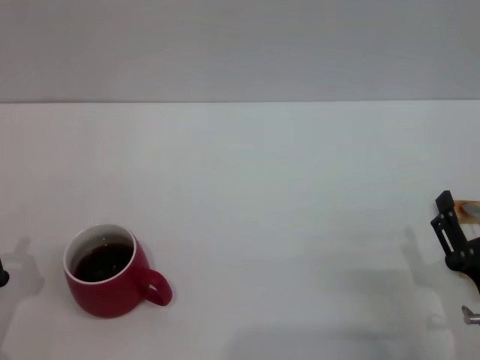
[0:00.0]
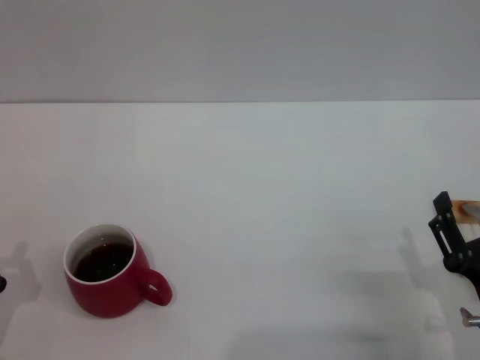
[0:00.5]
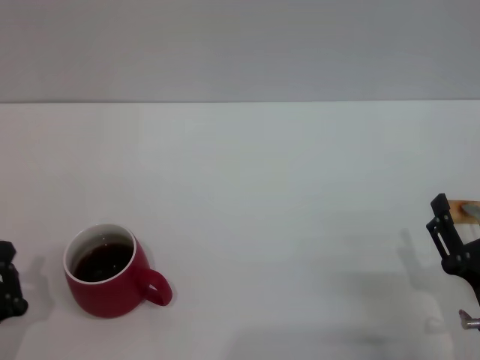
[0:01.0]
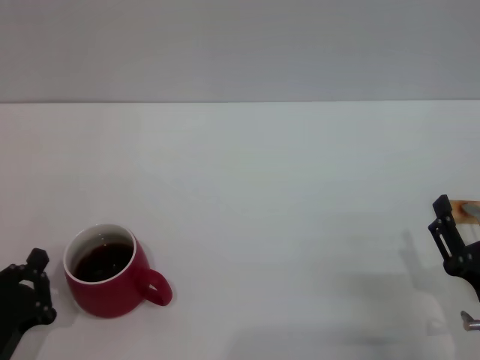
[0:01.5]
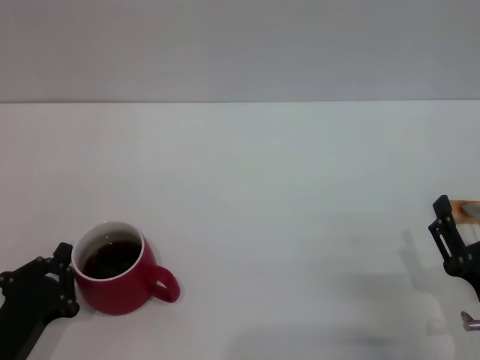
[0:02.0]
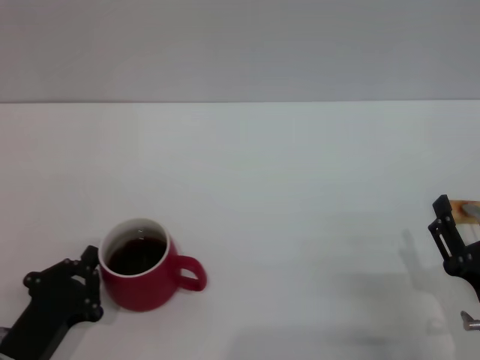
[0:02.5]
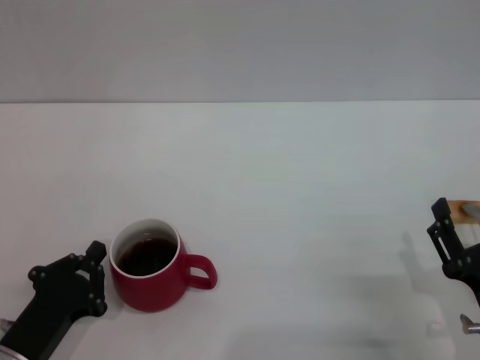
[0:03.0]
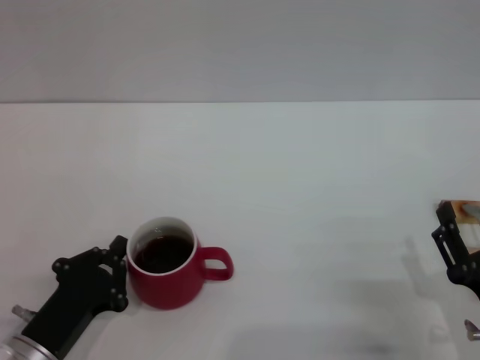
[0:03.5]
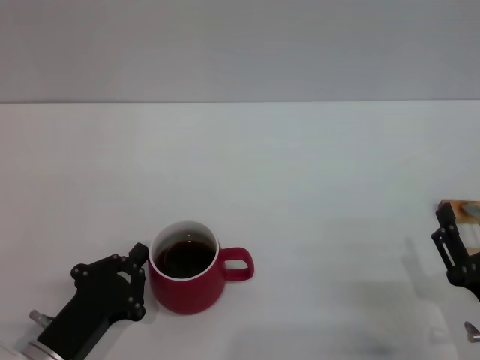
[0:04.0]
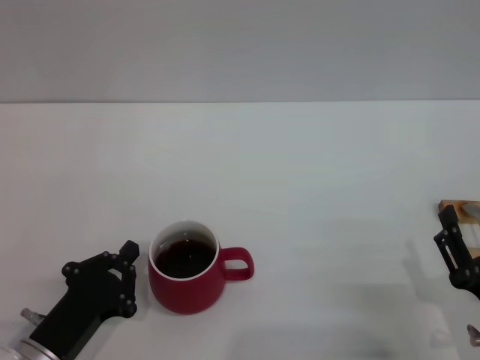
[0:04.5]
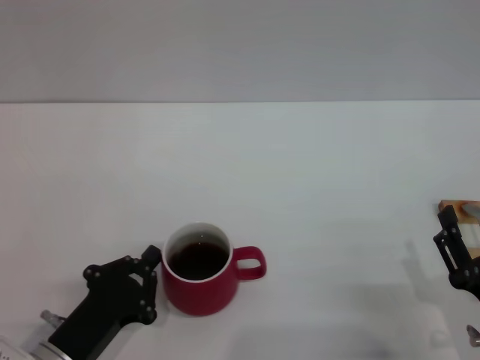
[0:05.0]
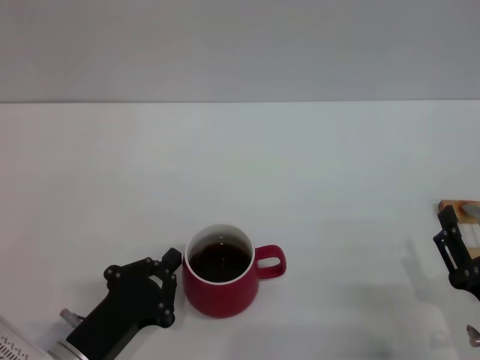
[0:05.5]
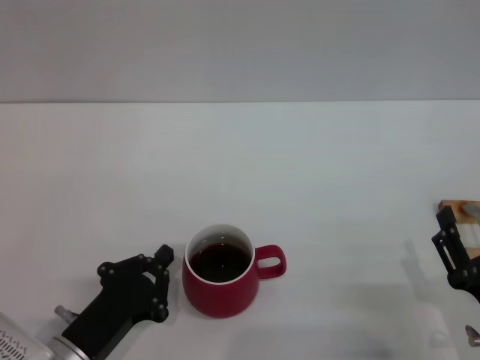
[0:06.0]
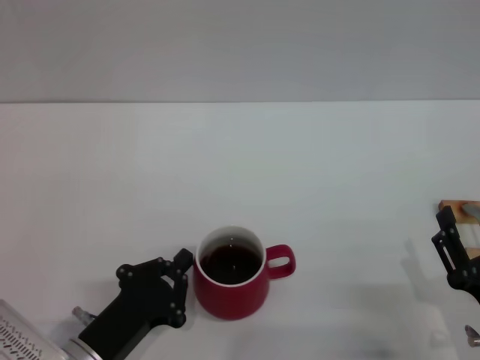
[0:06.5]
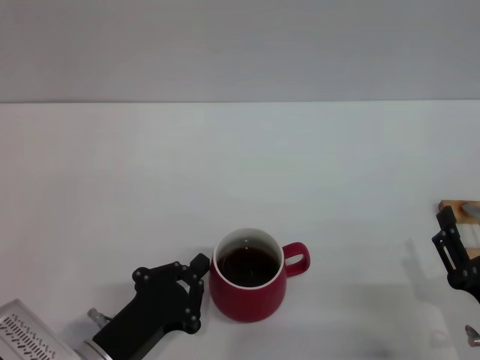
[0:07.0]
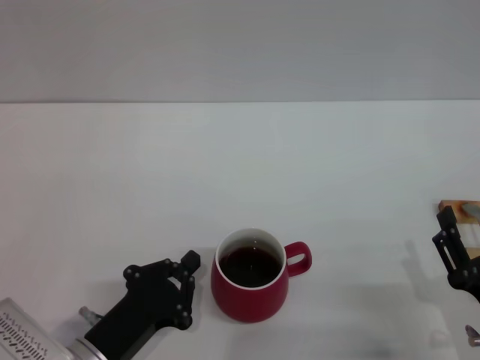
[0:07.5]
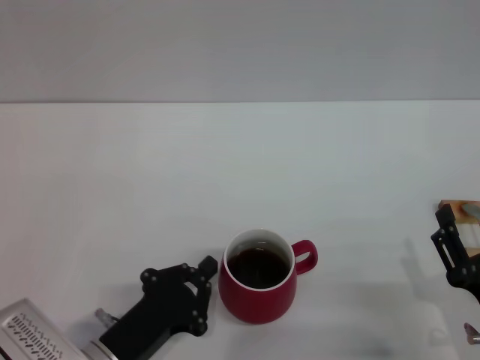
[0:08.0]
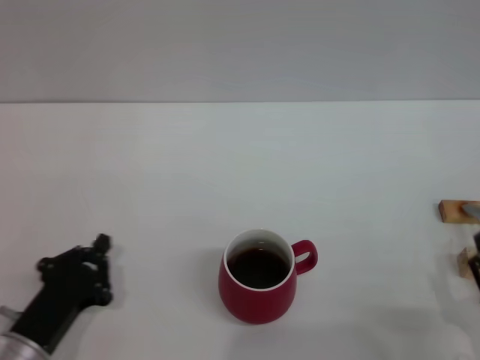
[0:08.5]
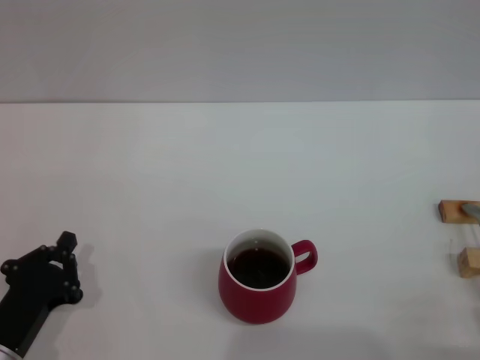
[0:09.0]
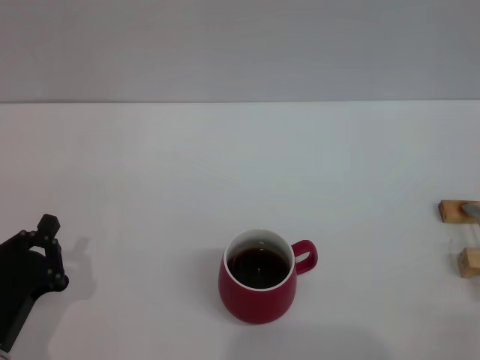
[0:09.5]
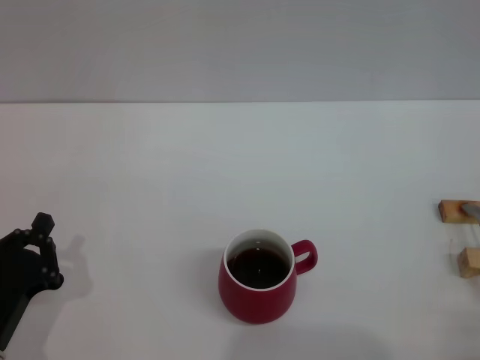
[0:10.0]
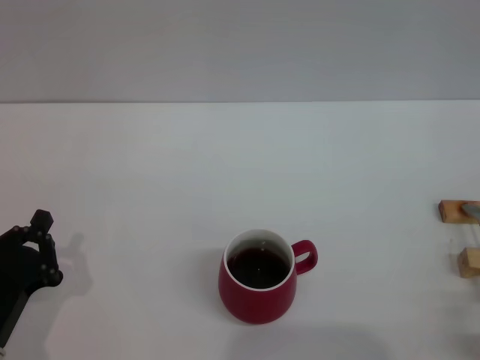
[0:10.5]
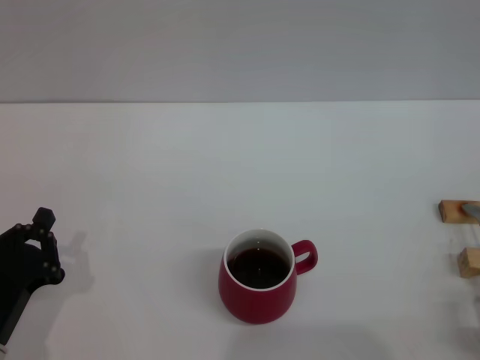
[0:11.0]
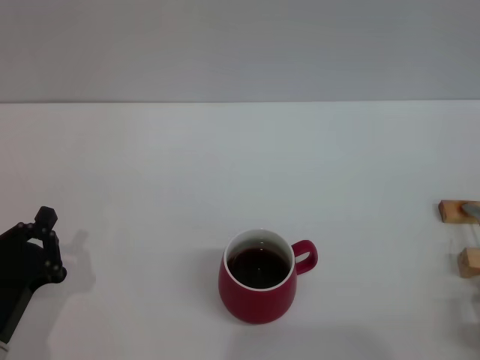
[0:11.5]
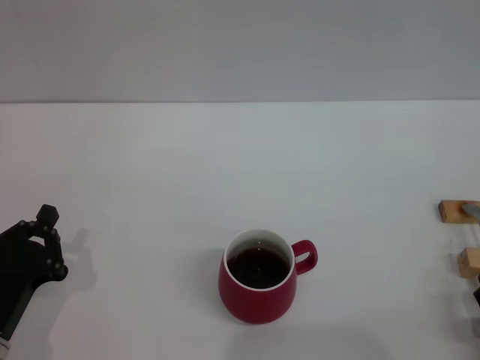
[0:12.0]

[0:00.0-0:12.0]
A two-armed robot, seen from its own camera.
Task of the whole recording: Move the red cup to the center, lift the pink spoon, stir it three times in the cup, and put the spoon into the cup.
Step, 0:00.0 to 0:08.0: Move the cup with coffee to the center of view with the left gripper.
0:00.0 to 0:02.0: The grippers make only small movements.
0:02.0 to 0:04.0: The grippers stay close to where they were, moving slightly.
0:04.0 to 0:08.0: The grippers move only a little.
0:08.0 to 0:10.0: The right gripper shifts approximately 10 cm backward. Meanwhile the left gripper moves to the left, about 10 cm.
0:10.0 to 0:12.0: The right gripper travels forward by about 5 cm.

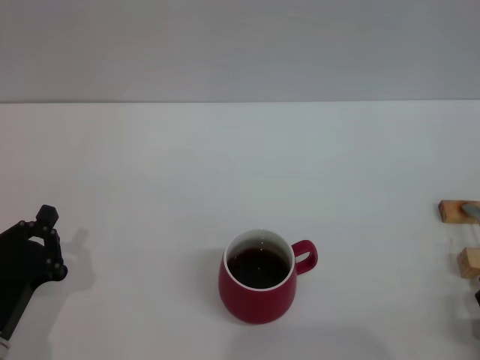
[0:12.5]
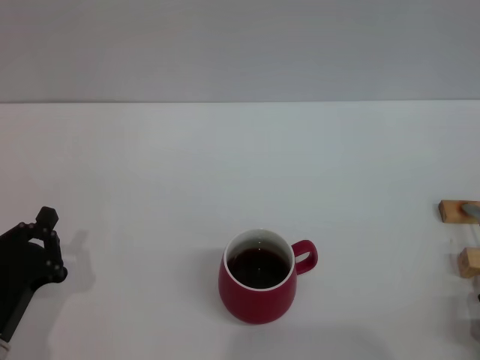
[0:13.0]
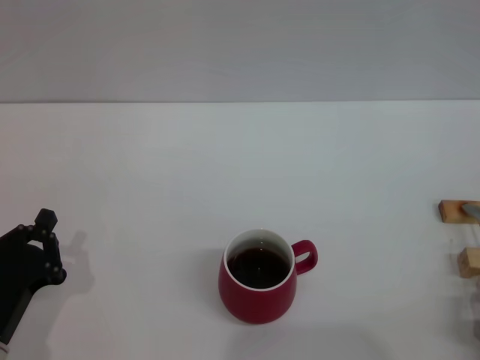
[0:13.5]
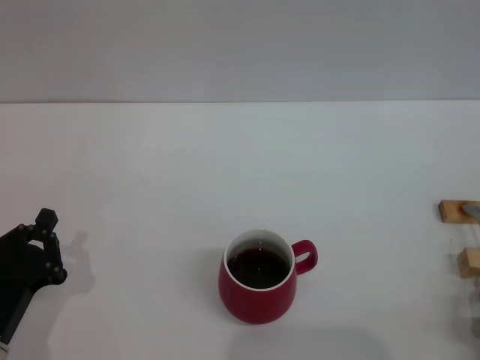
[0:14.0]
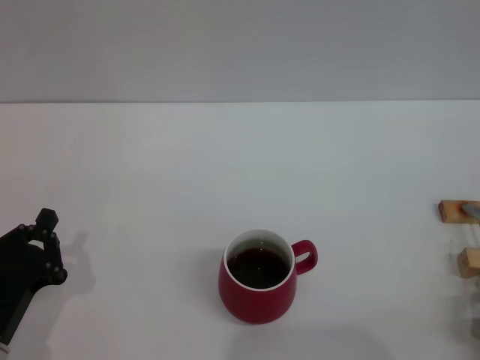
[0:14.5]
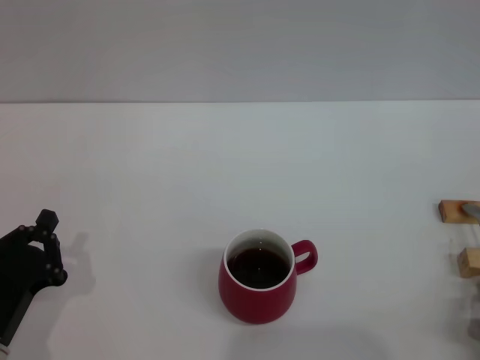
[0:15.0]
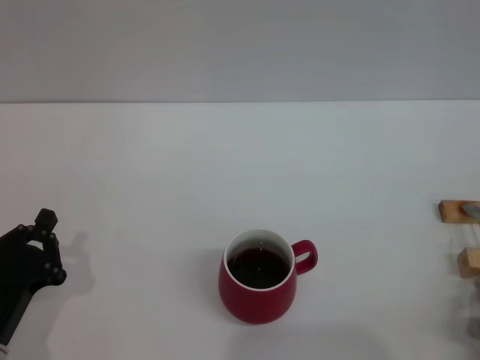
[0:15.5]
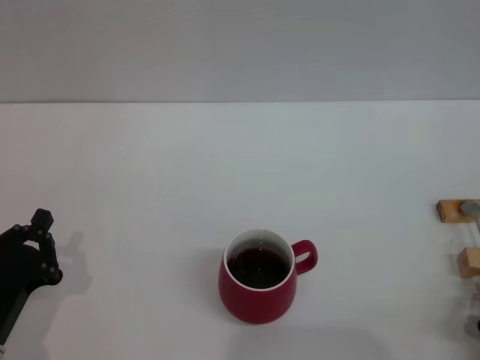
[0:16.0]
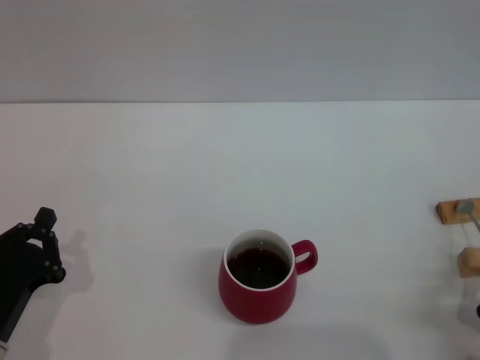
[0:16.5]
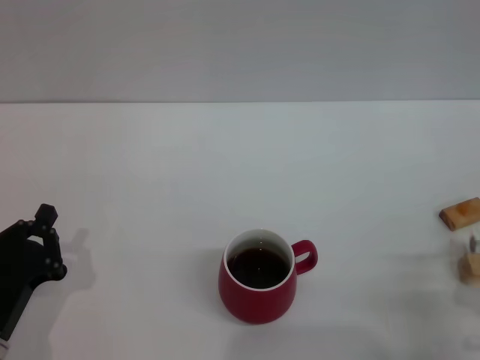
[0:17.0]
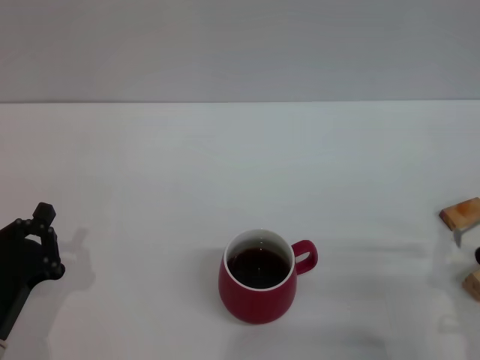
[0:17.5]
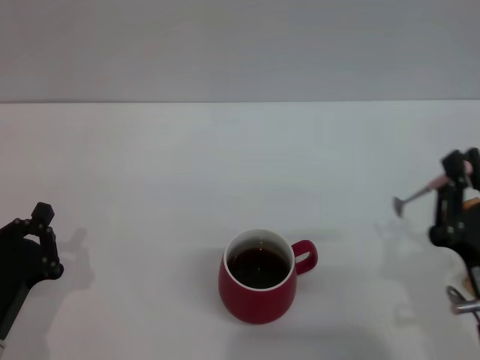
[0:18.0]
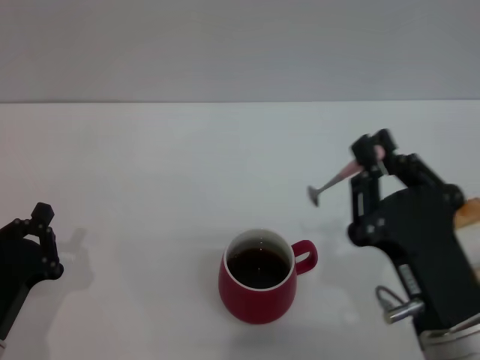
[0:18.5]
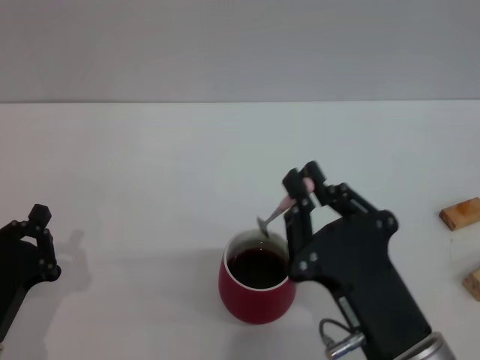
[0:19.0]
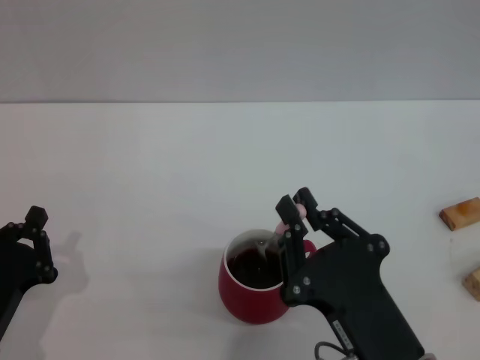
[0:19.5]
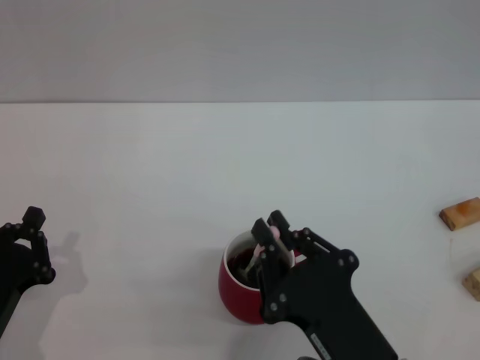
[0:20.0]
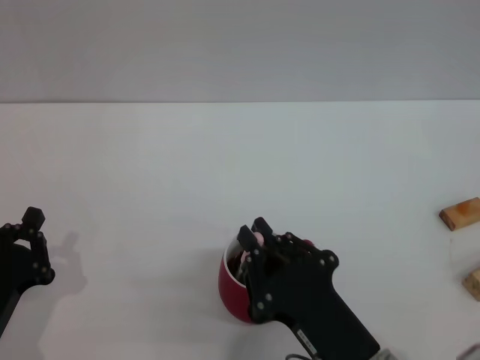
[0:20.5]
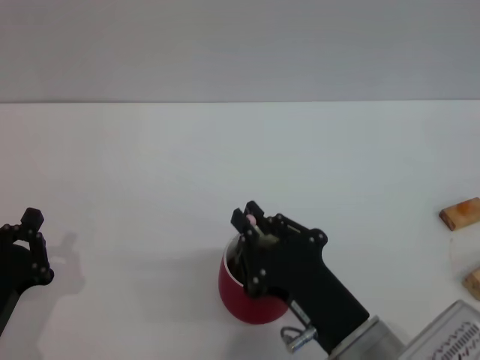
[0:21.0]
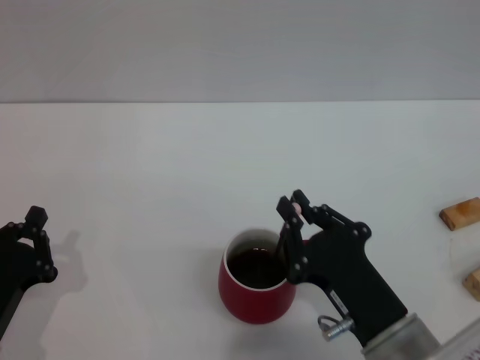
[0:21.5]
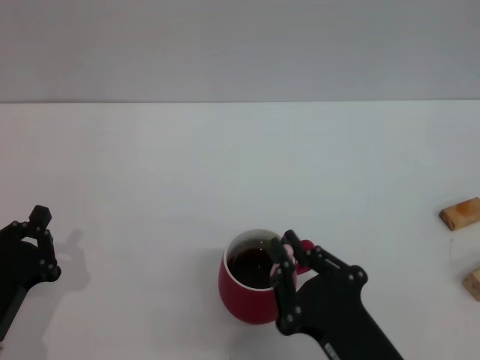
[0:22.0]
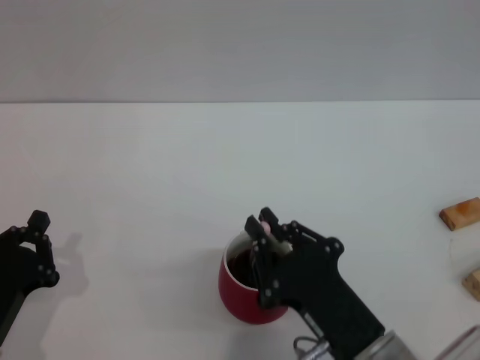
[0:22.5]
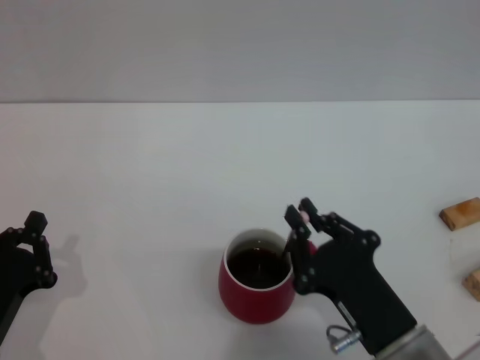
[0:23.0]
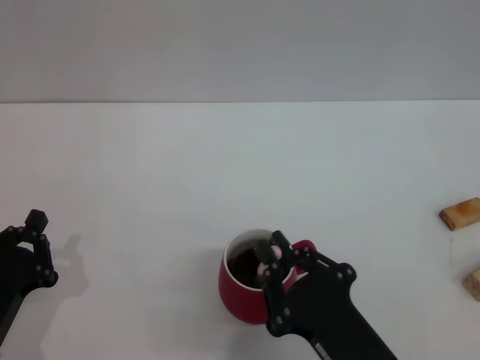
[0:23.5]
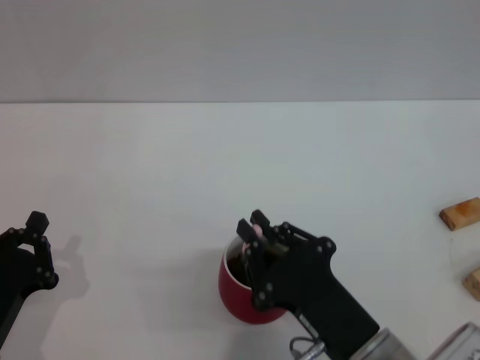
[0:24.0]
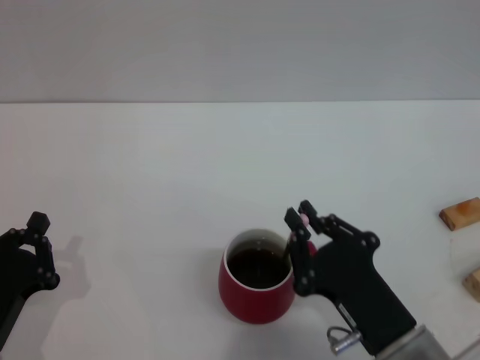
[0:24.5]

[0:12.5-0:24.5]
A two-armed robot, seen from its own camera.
Task of the whole recording: Move the red cup to the center, lift the pink spoon, stir it three times in the cup, and put the spoon into the cup.
Step, 0:12.5 to 0:17.0: Pick up the spoon with the right gripper.
0:16.5 to 0:18.5: The right gripper travels to the left and upward by some 15 cm.
0:18.5 to 0:20.5: The right gripper shifts by some 5 cm.
0:20.5 to 0:24.5: The grippers move only a little.

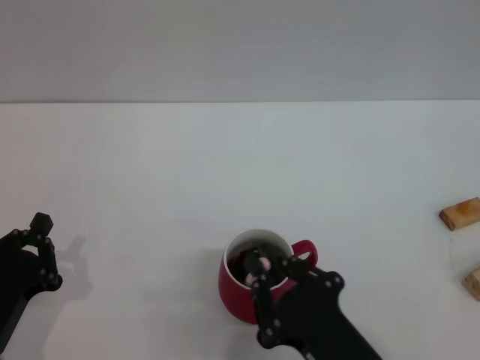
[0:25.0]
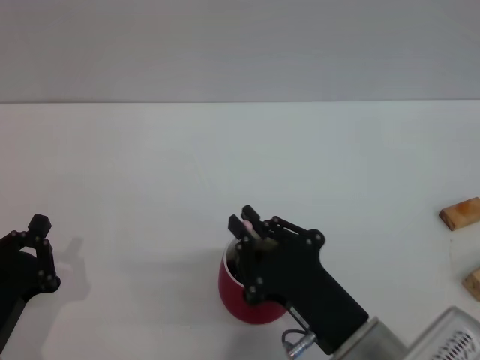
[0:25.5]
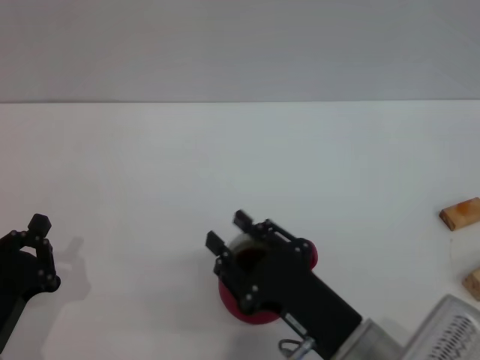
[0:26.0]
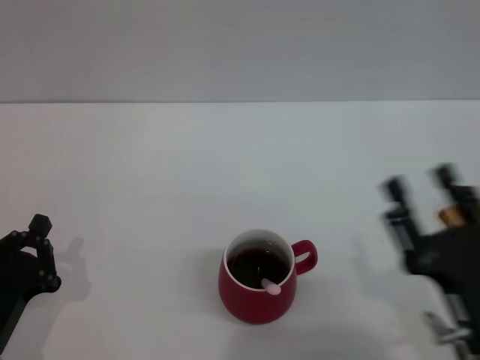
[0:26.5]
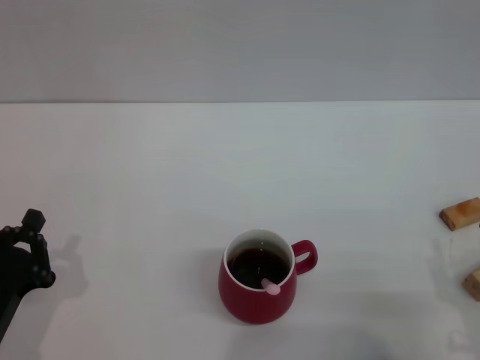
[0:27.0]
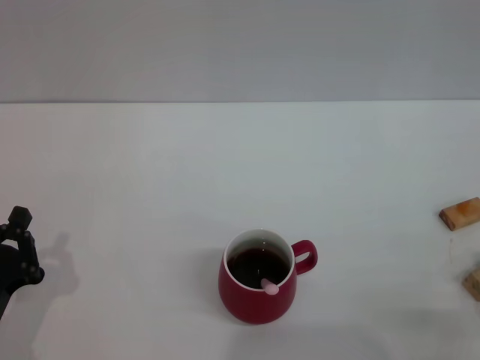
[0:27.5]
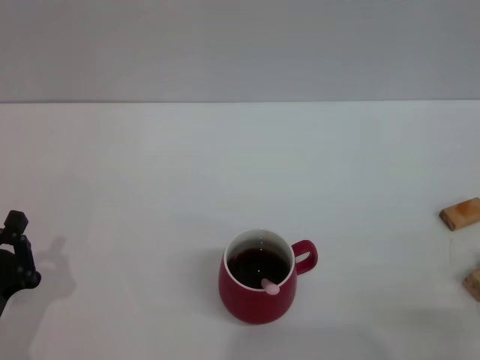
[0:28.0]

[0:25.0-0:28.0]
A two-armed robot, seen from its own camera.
Task of the whole recording: Move the red cup to the center, lift the pink spoon, stir it three times in the cup, and put the spoon into the cup.
0:25.0 to 0:26.5: The right gripper goes some 10 cm to the right, and opens up.
0:26.5 to 0:28.0: The right gripper travels to the right by some 5 cm.
